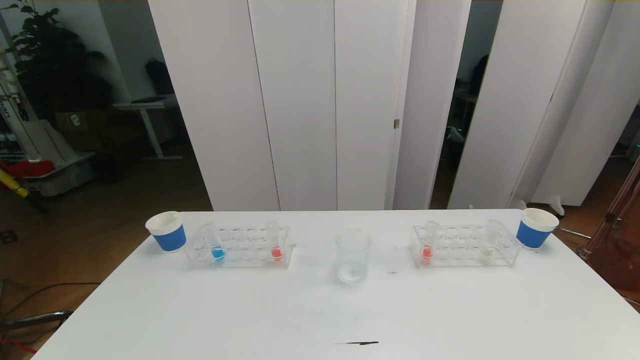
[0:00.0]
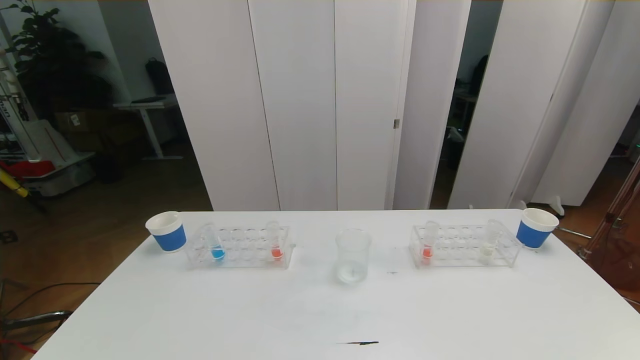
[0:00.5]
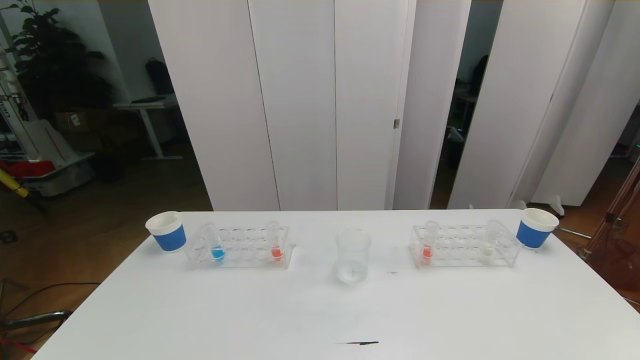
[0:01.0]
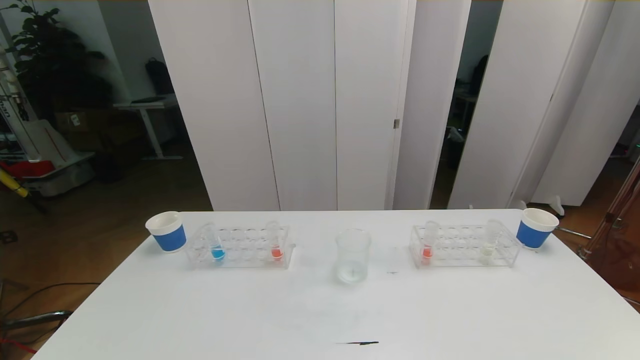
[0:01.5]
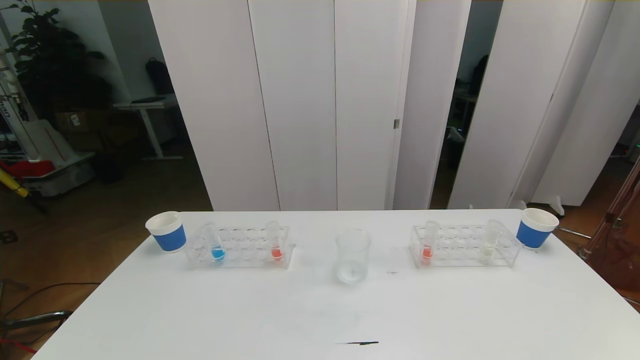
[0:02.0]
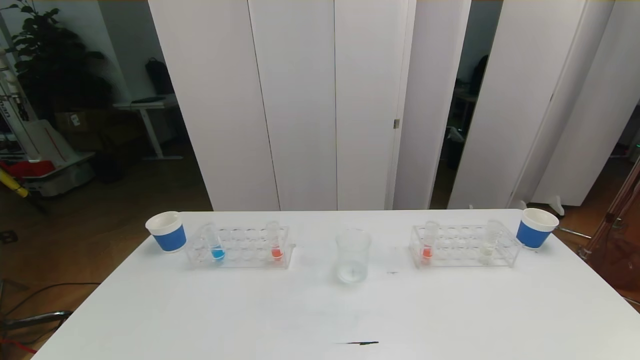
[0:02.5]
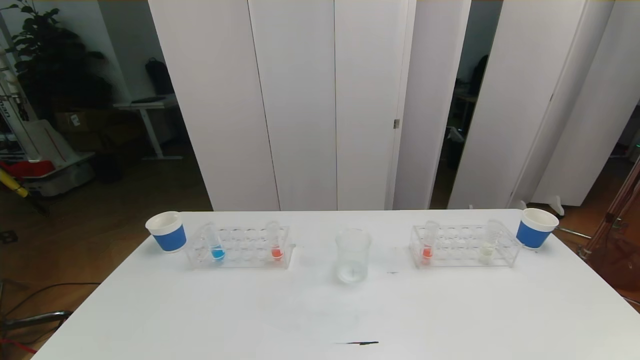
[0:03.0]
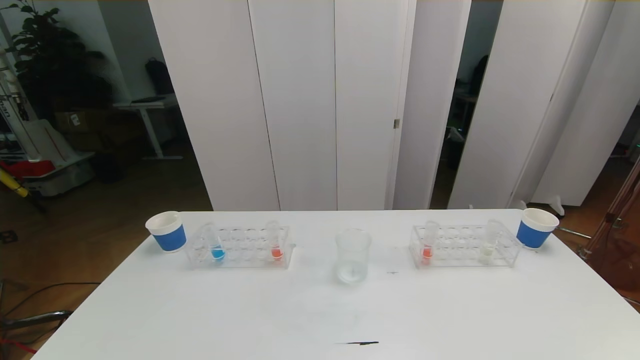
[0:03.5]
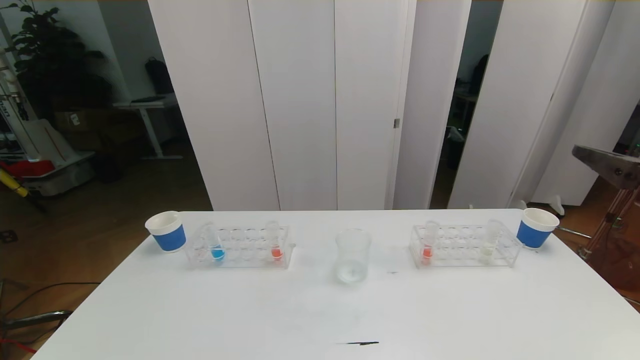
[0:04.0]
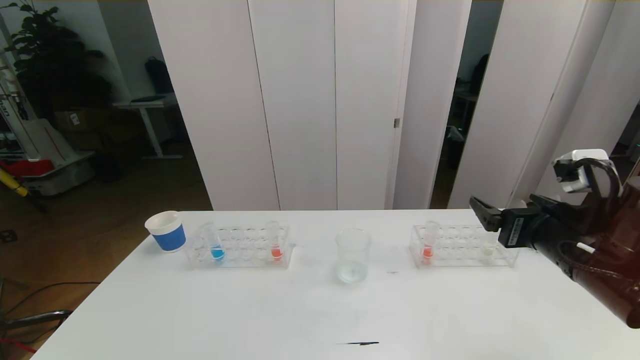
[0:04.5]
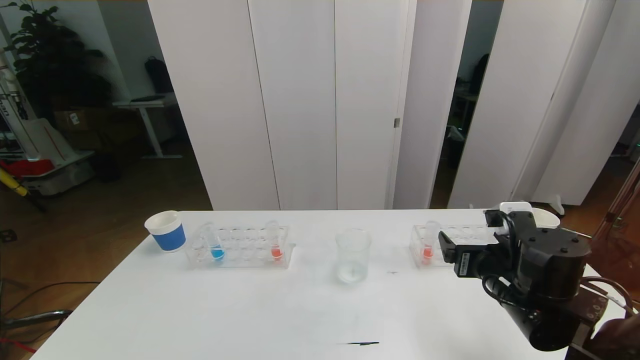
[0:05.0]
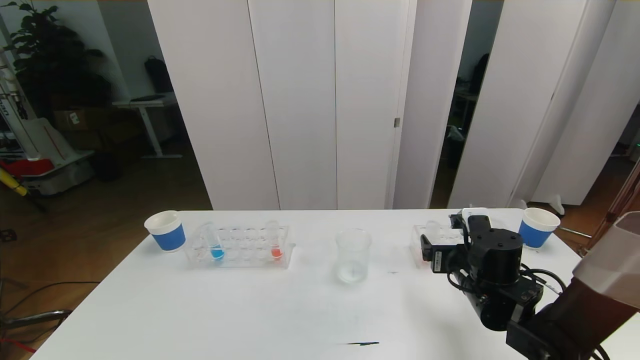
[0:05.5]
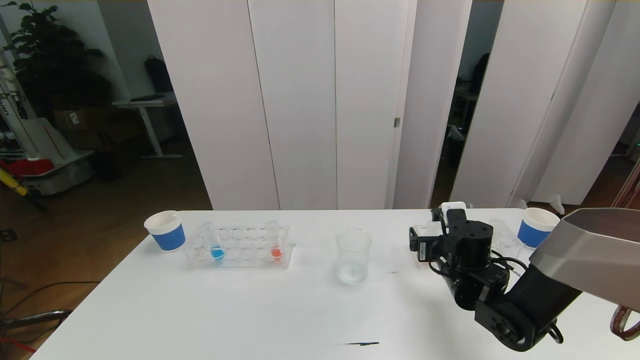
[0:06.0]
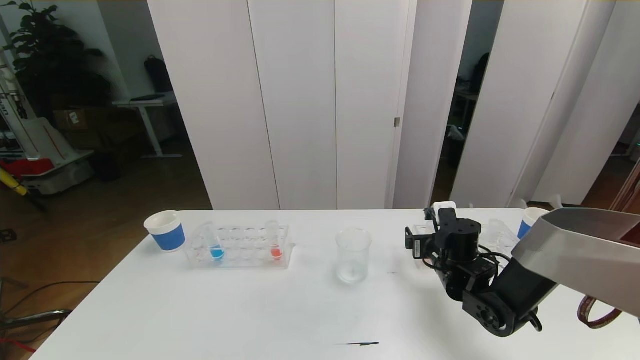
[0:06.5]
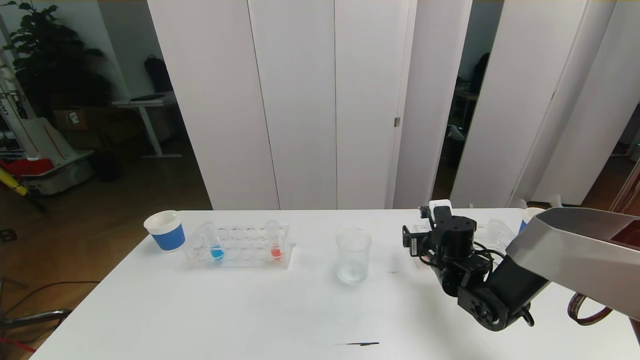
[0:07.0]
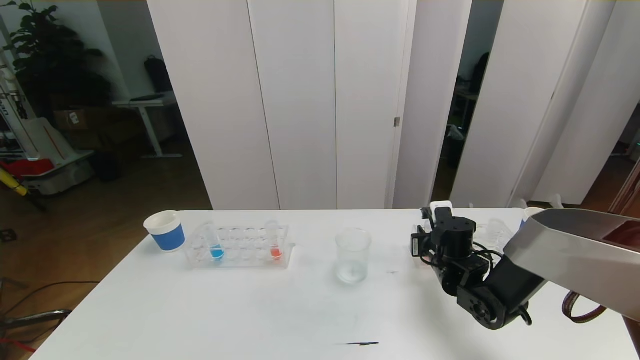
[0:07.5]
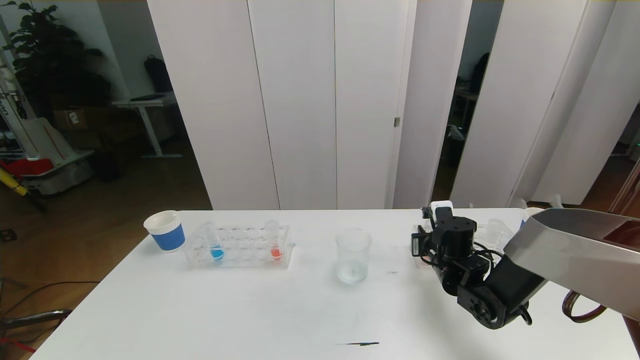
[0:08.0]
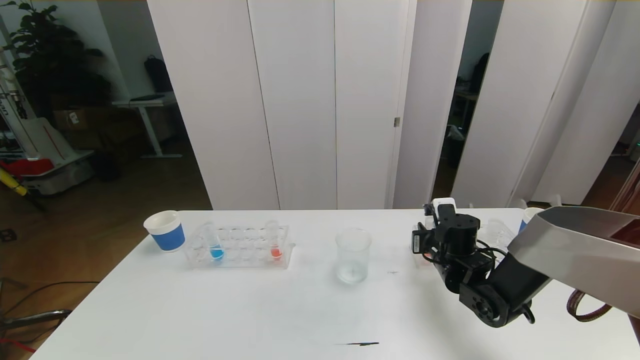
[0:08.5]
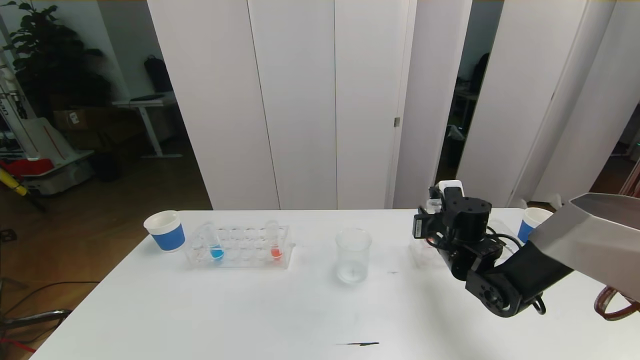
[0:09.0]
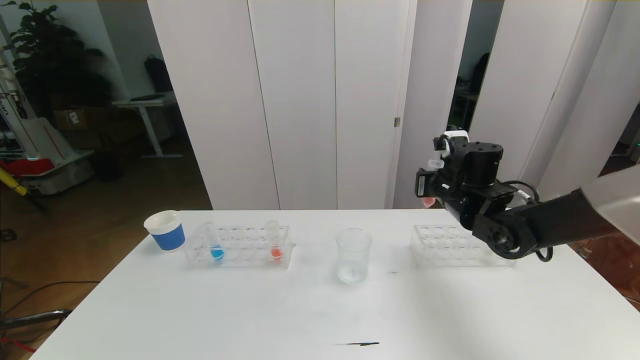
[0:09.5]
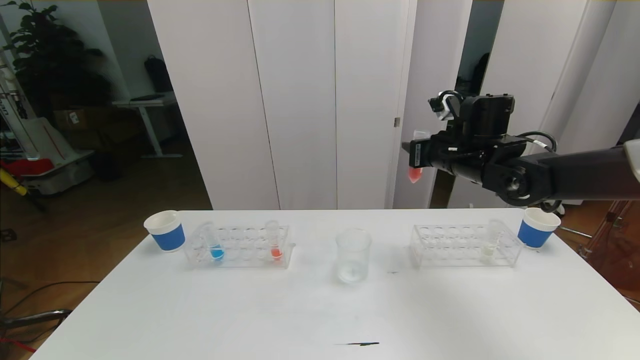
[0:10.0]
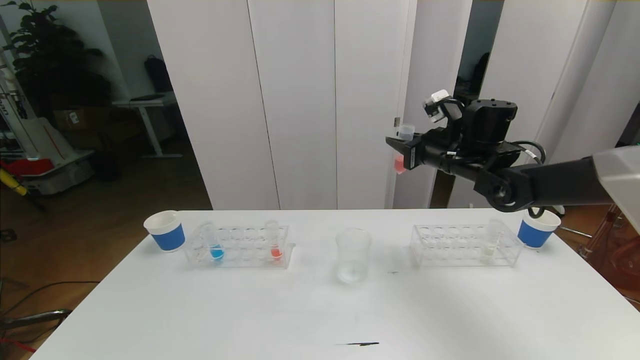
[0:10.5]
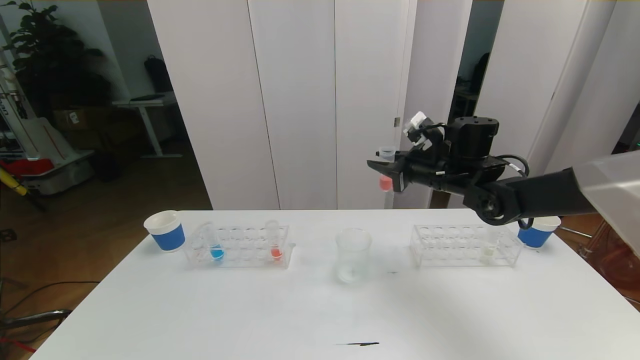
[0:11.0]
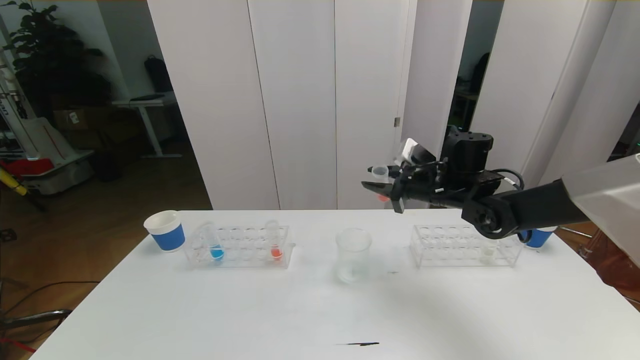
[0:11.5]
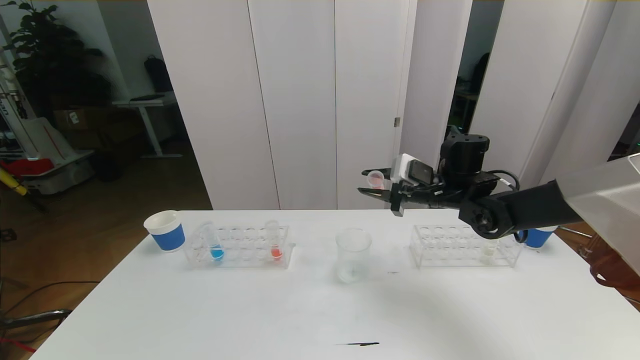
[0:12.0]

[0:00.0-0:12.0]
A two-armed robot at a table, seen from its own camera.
Task of the whole recording: pick up the test tube with red pigment the test tube with blue pigment and the test tube with white pigment by grippers and pour them into the beaker.
0:00.0 to 0:02.0: The two grippers keep their place.
0:04.0 to 0:06.0: The right gripper heads downward, forward and to the left, covering approximately 30 cm.
0:06.0 to 0:08.0: The right gripper closes its fingers.
0:08.0 to 0:10.0: The right gripper is displaced upward by approximately 20 cm.
0:10.0 to 0:12.0: The right gripper shifts about 5 cm downward.

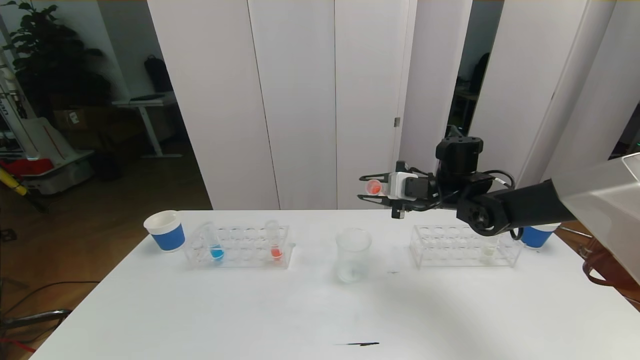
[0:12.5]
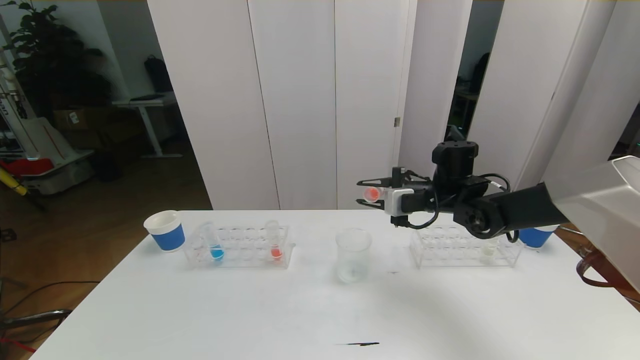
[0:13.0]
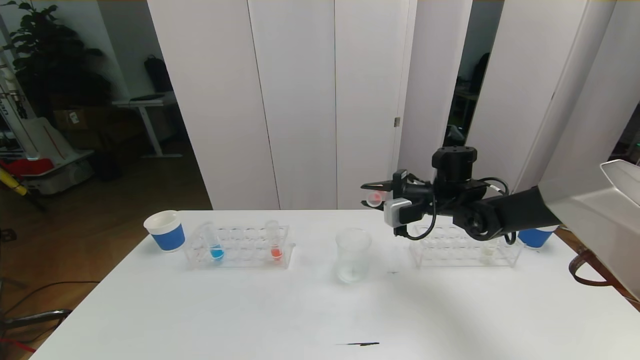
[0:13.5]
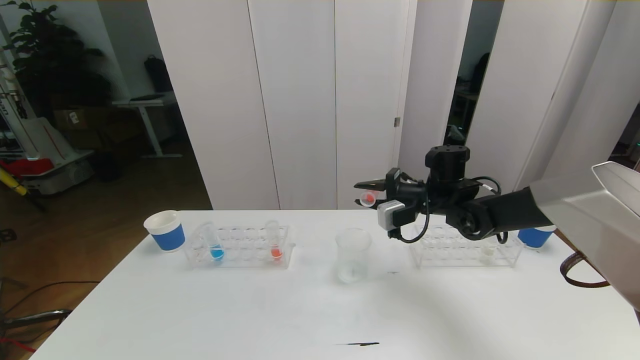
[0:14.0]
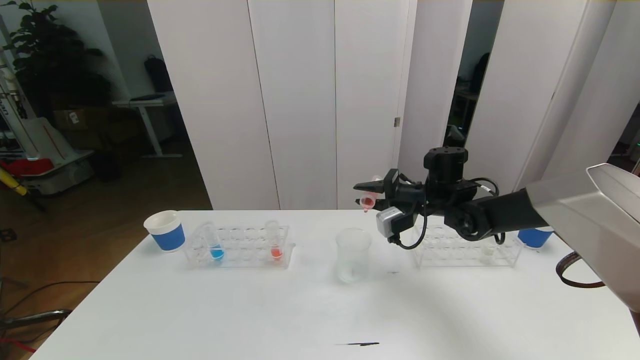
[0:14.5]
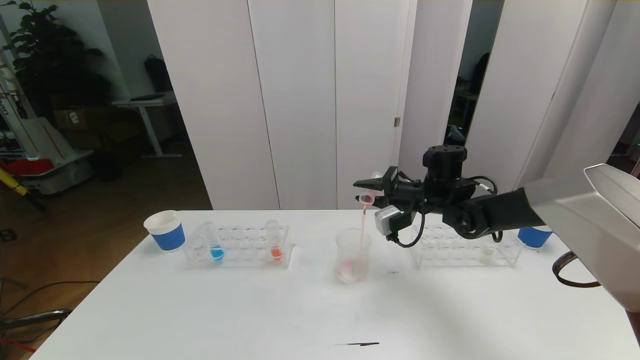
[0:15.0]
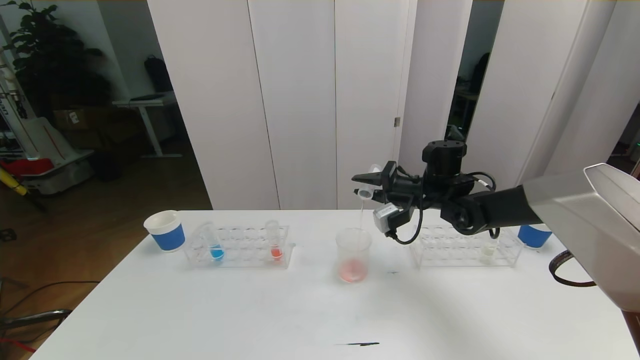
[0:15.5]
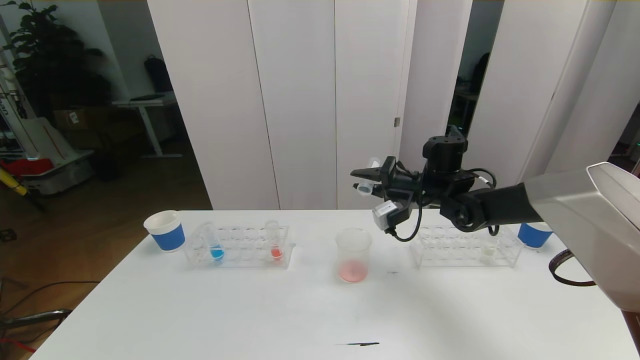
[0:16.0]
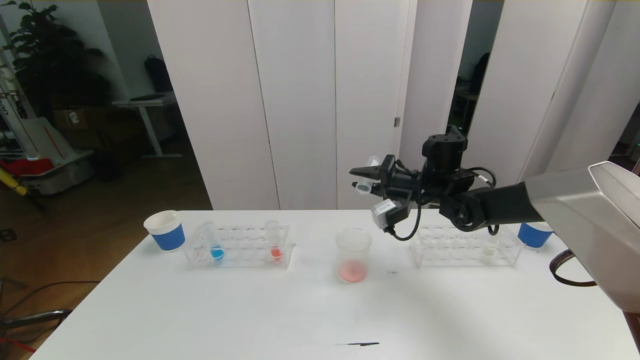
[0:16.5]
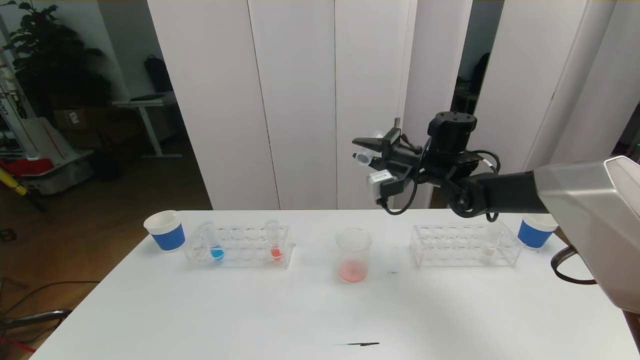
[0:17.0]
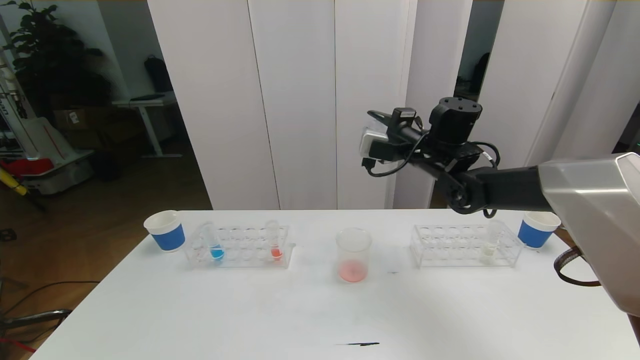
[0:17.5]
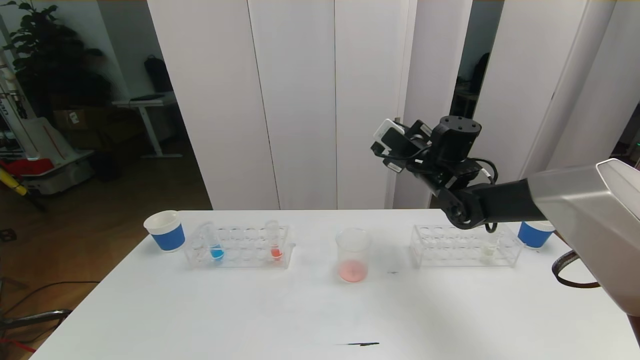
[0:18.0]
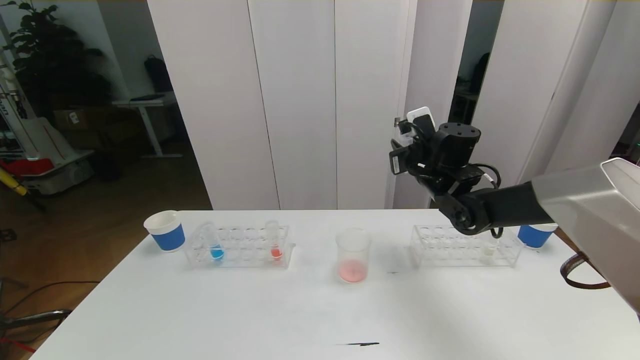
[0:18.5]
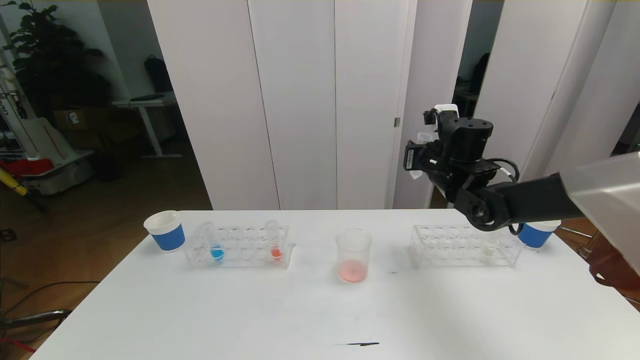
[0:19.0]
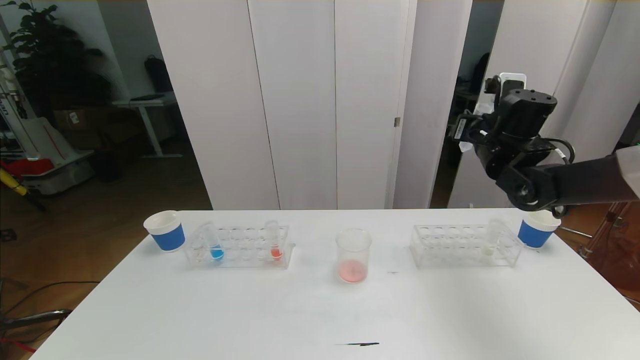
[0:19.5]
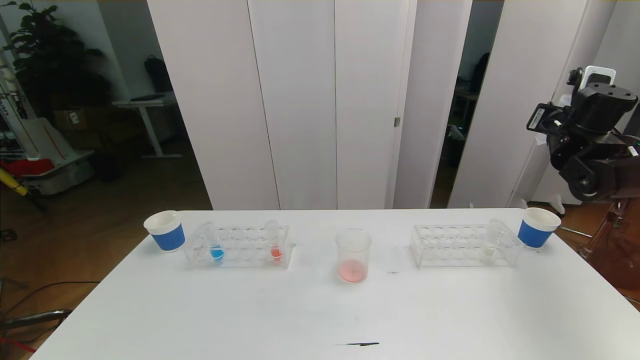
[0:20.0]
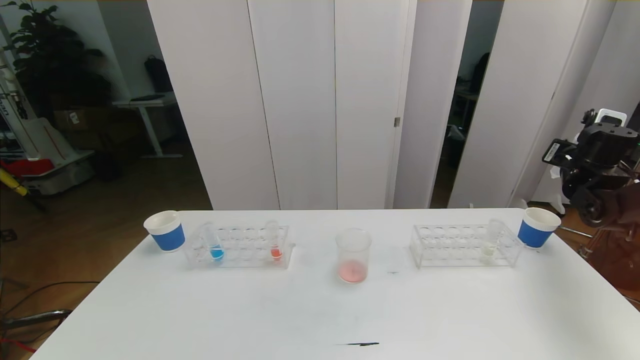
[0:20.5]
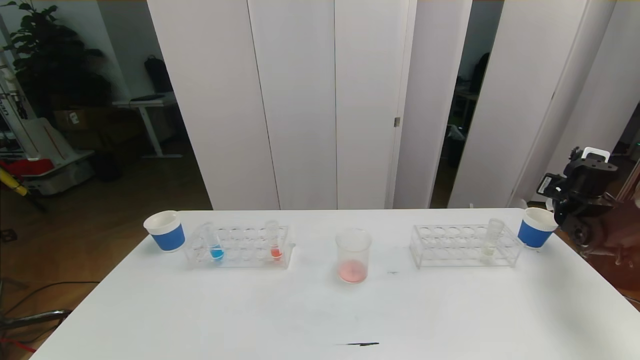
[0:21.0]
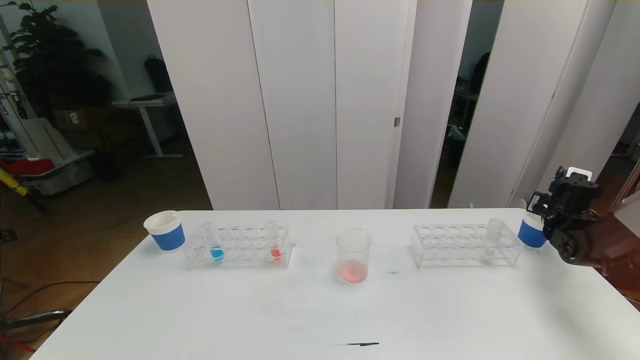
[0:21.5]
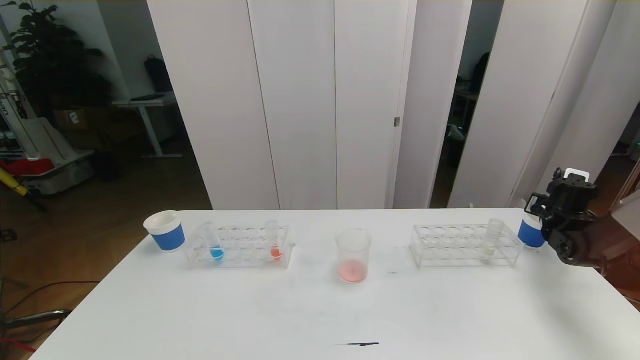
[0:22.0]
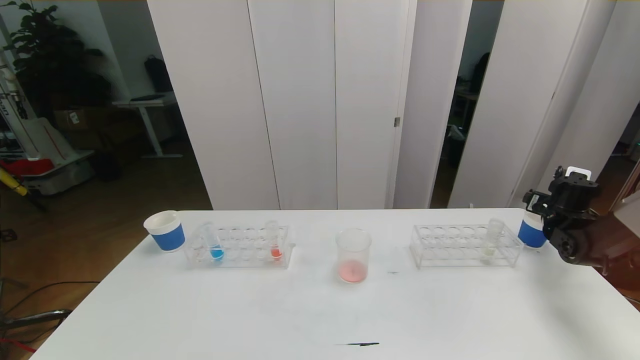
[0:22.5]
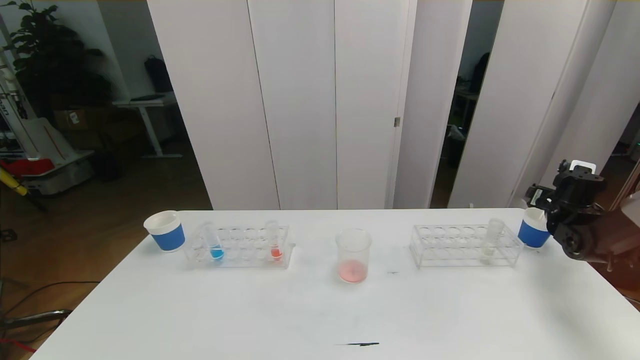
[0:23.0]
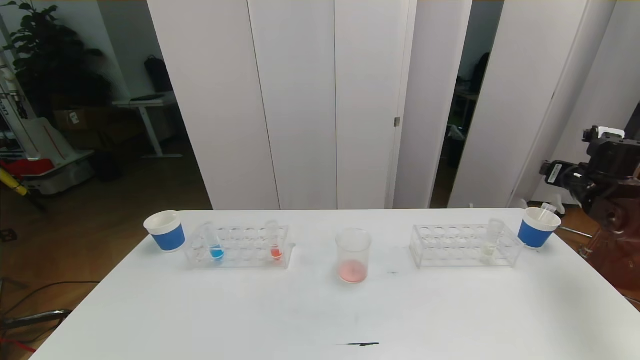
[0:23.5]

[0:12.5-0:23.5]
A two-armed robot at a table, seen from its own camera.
Task of the whole recording: pick up the test tube with red pigment the test tube with blue pigment and the test tube with white pigment by grippers and pour them into the beaker.
0:14.5 to 0:16.0: The grippers move only a little.
0:18.0 to 0:20.0: The right gripper moves to the right, roughly 25 cm.
0:20.0 to 0:21.5: The right gripper goes some 20 cm downward.
0:21.5 to 0:23.5: The right gripper travels upward by approximately 10 cm, and opens up.
